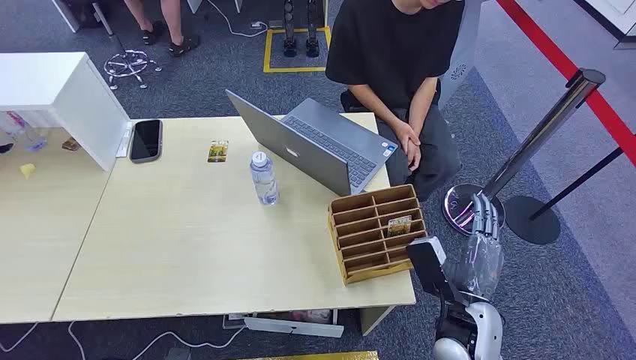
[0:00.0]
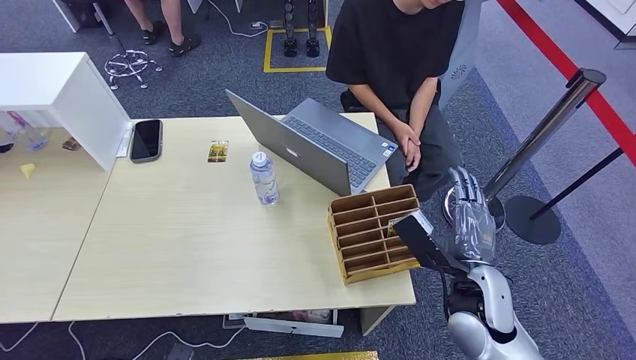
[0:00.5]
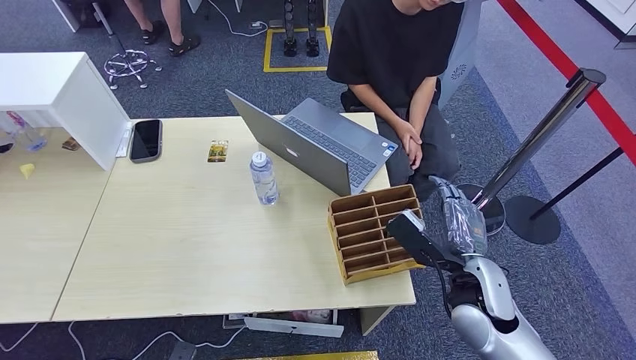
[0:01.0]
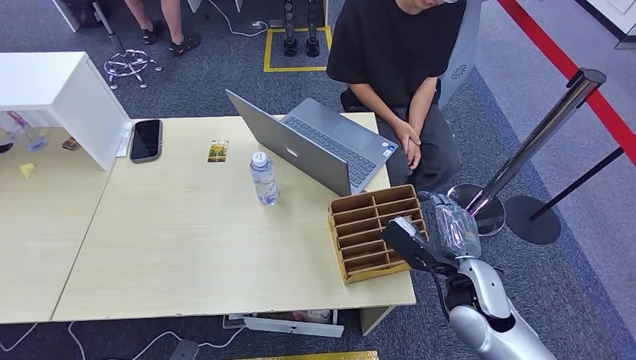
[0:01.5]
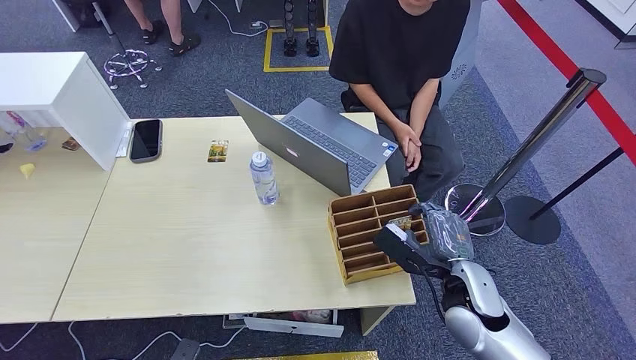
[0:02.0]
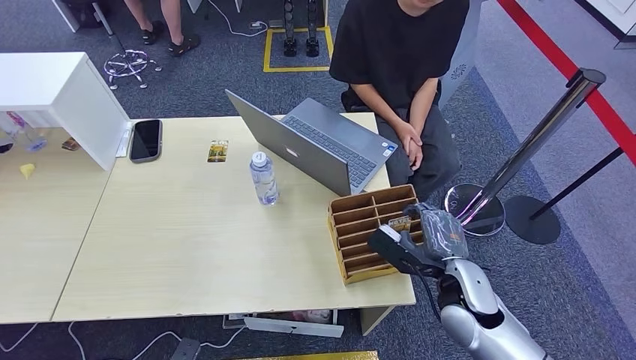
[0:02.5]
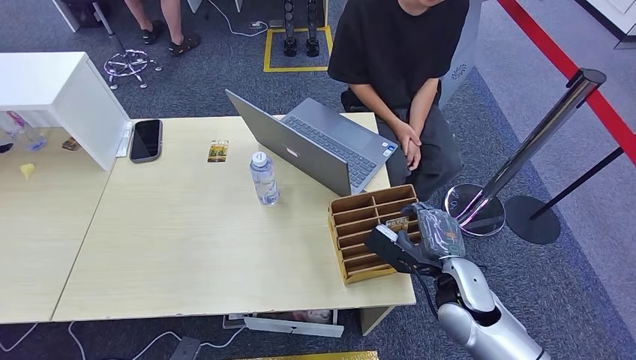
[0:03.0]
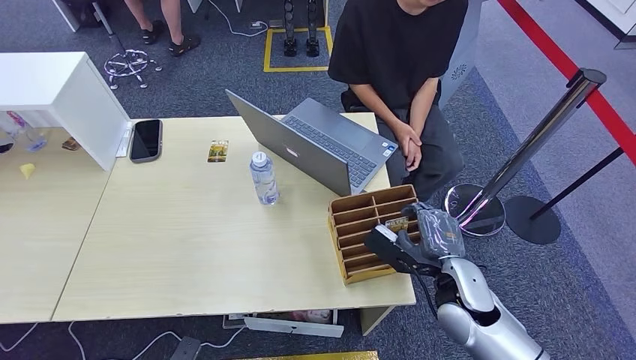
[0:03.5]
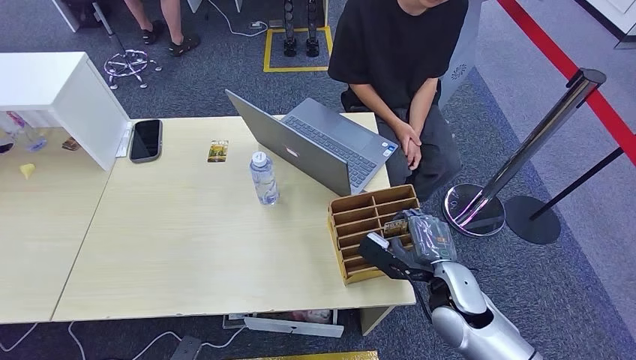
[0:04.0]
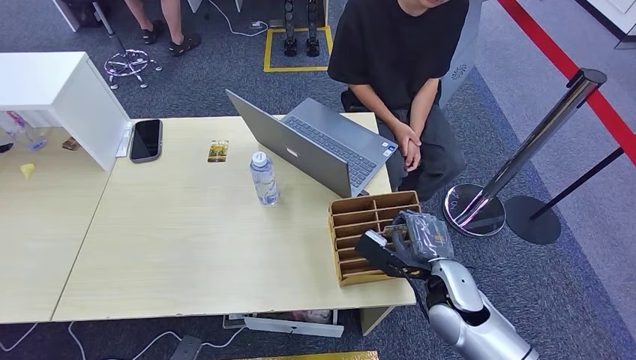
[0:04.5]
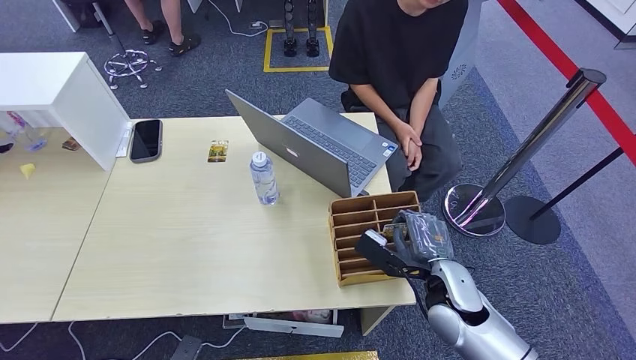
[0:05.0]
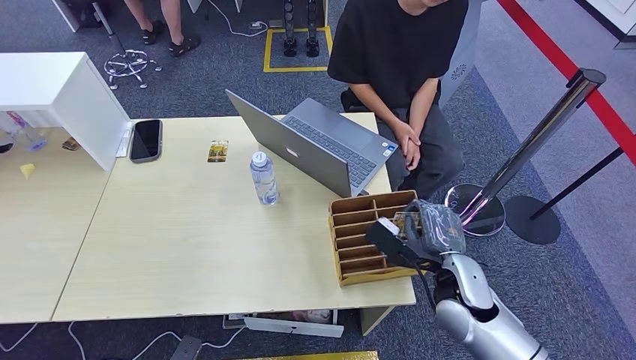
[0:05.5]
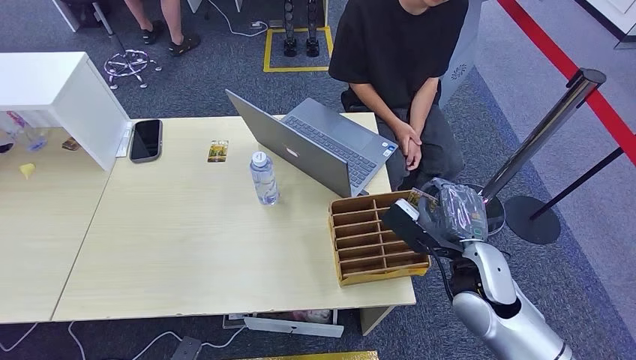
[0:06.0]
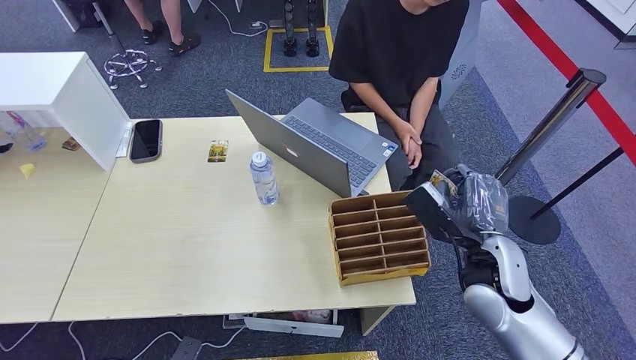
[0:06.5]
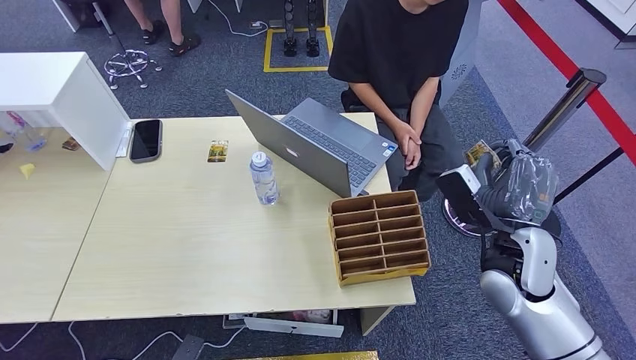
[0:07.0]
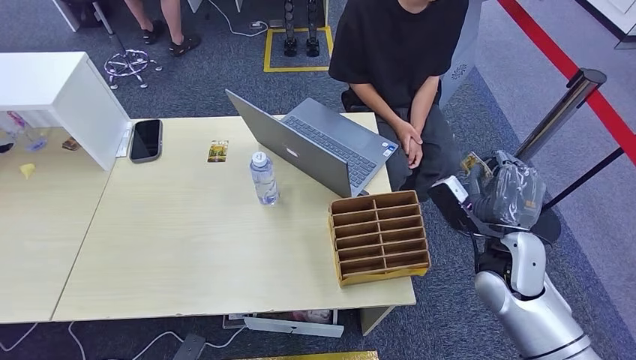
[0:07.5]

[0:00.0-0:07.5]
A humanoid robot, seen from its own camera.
Step, 0:00.0 to 0:06.0: Pick up the key card from the card box.
Step, 0:06.5 to 0:07.5: Hand the key card to the target.
0:02.0 to 0:05.5: There are only small adjustments of the hands.
0:05.5 to 0:07.5: The right hand moves to the right, roughly 5 cm.
